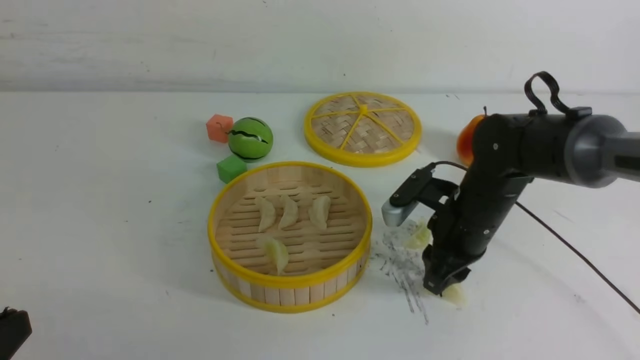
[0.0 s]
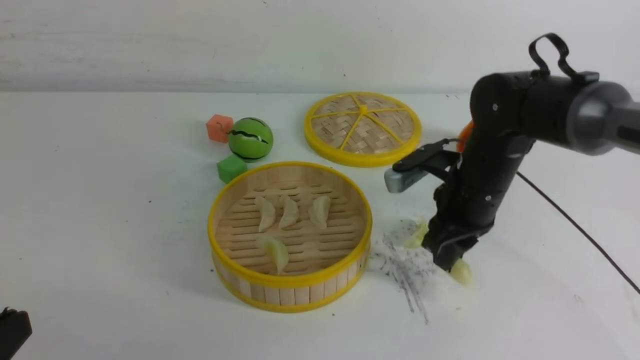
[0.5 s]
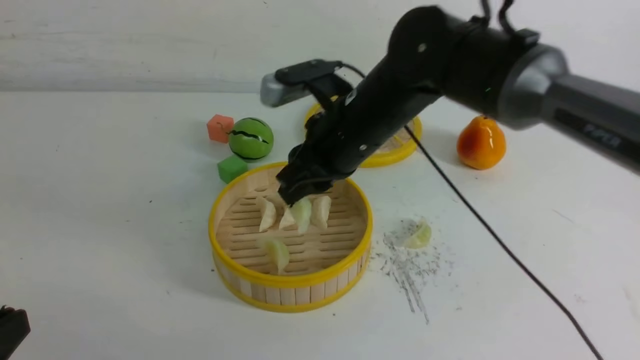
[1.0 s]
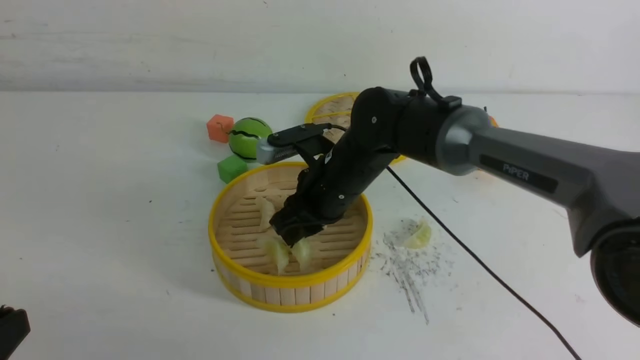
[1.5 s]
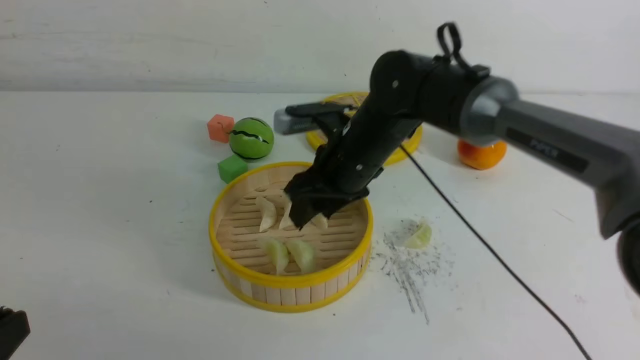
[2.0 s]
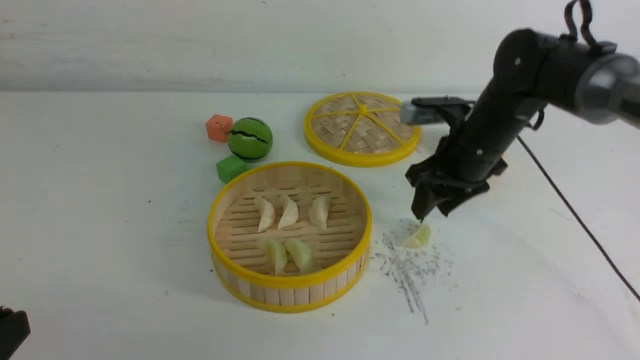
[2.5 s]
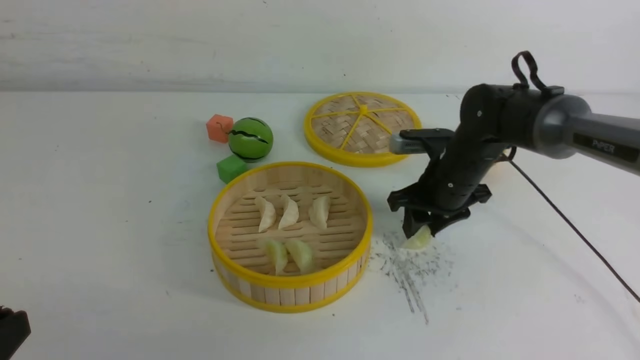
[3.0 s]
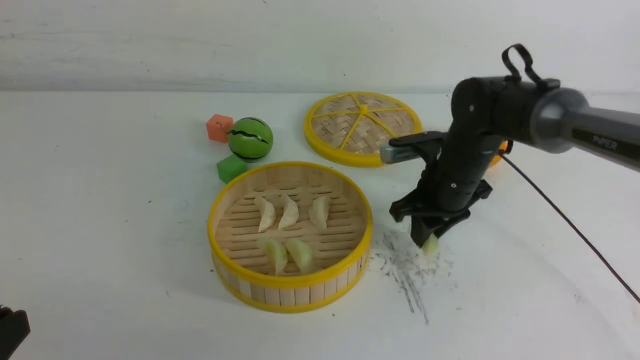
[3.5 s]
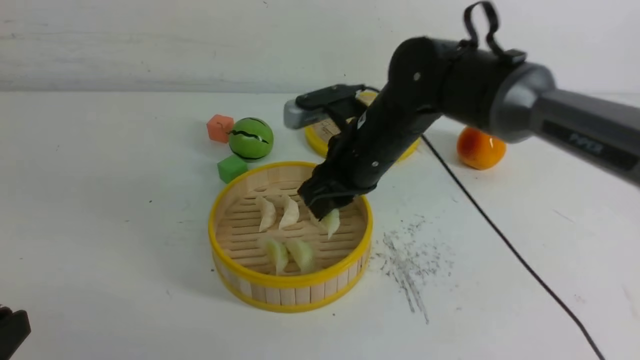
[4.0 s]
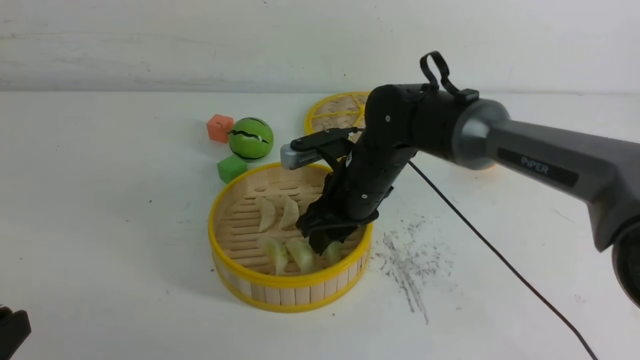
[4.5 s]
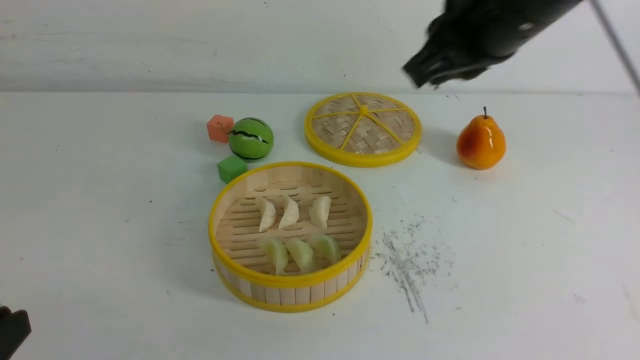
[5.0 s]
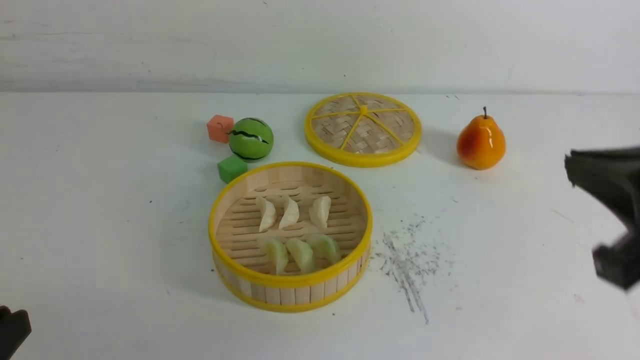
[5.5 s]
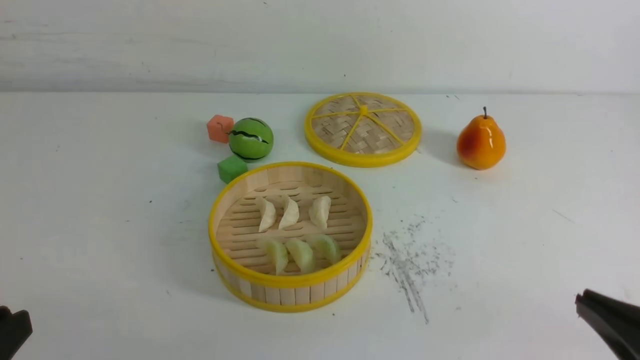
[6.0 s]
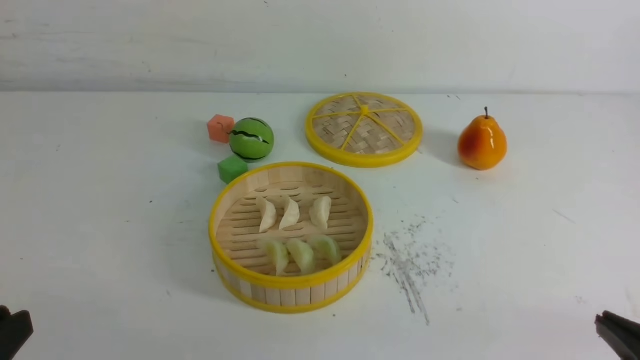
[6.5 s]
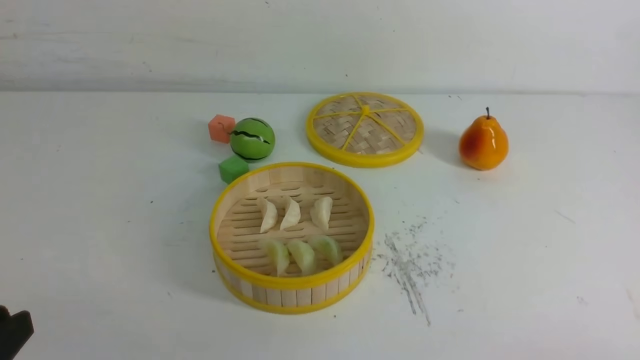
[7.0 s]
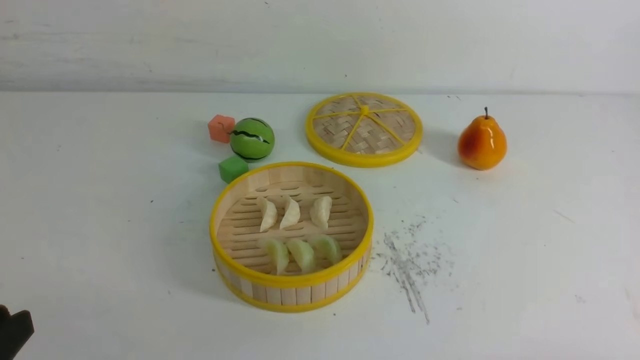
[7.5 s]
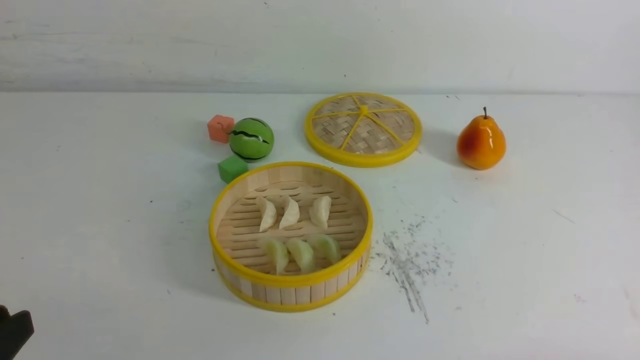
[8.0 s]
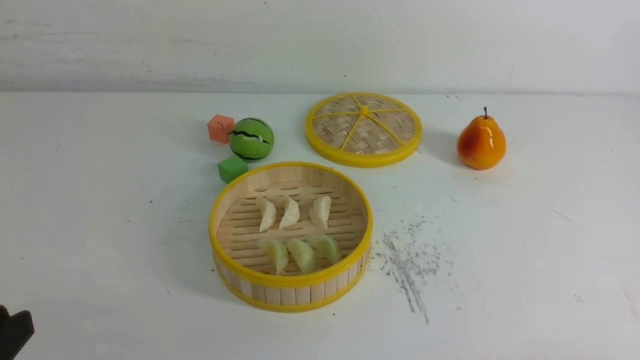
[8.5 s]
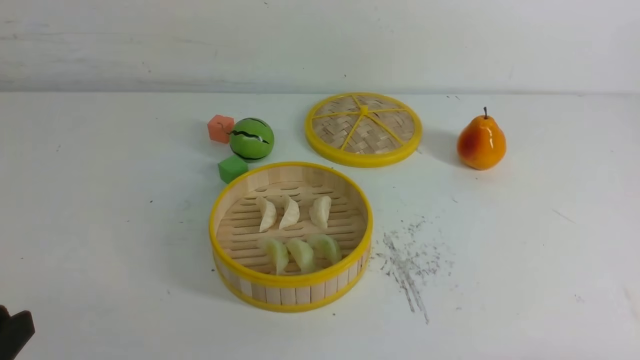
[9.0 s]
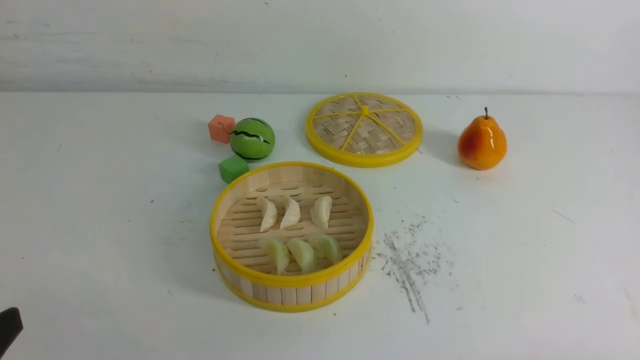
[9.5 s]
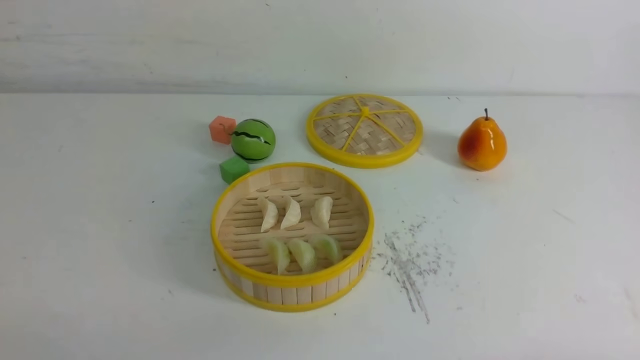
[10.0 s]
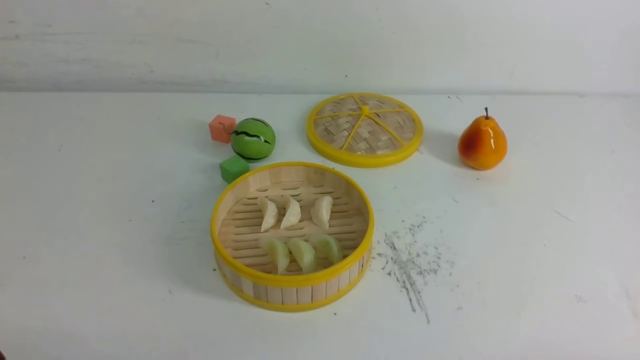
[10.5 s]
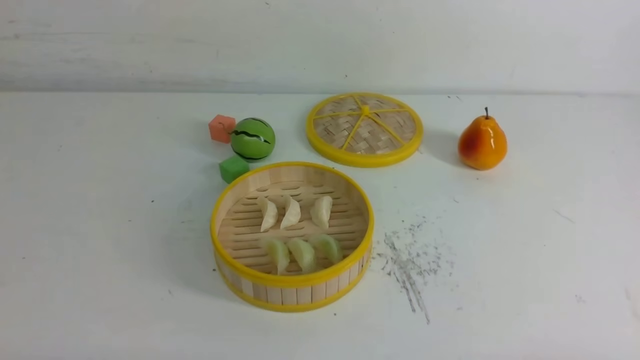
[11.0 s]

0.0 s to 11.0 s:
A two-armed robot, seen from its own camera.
Task of the whole recording: put the dumplings into the steamer on the white table.
Step, 0.5 to 1.5 s: use the right arm to put the dumpling into the steamer.
Step, 2.5 to 3.0 s: use the right arm to grab a dumpling.
Step, 4.0 to 4.5 s: use the right arm to put the dumpling into the steamer.
0.0 to 2.0 s: The right gripper shifts about 15 cm to the left and upward.
2.0 to 3.5 s: The right gripper travels to the right by some 10 cm, and closes up.
3.5 to 5.5 s: The right gripper moves backward and upward, approximately 30 cm, and closes up.
5.5 to 7.5 s: The right gripper goes some 20 cm downward, backward and to the right.
7.5 to 9.0 s: Both grippers stay put.
9.0 to 11.0 s: The left gripper goes roughly 10 cm downward, and closes.

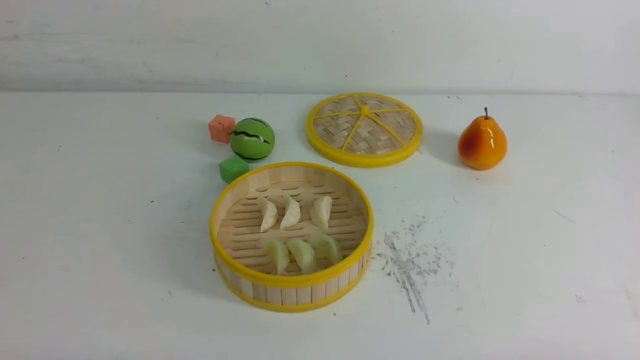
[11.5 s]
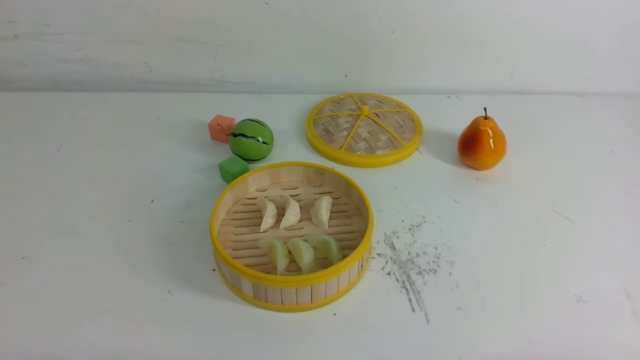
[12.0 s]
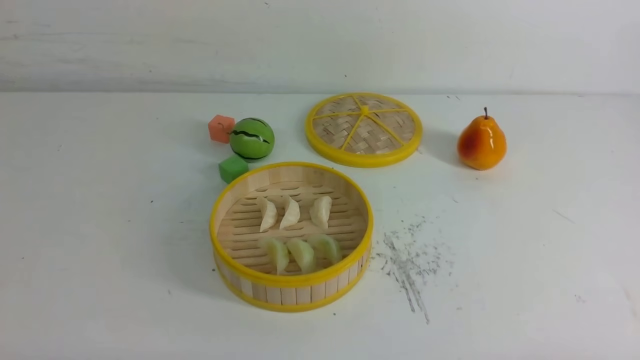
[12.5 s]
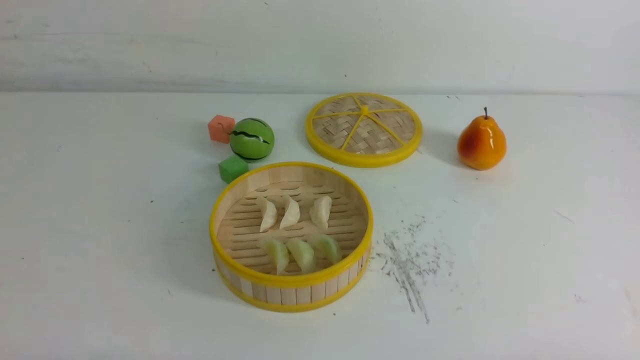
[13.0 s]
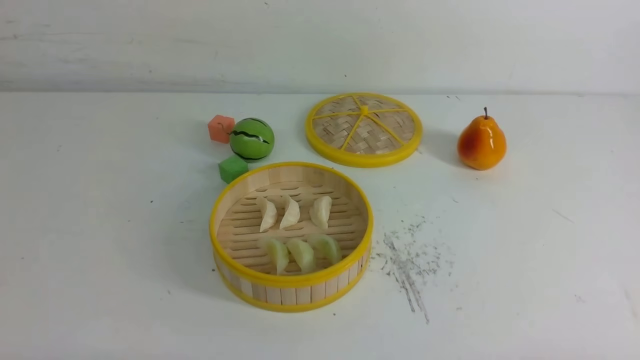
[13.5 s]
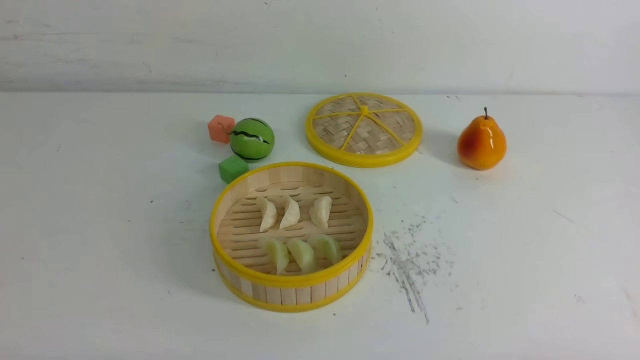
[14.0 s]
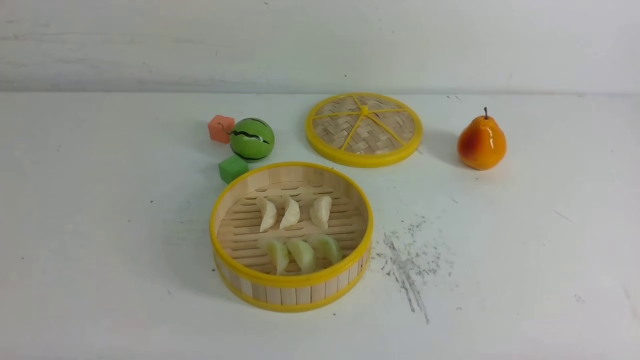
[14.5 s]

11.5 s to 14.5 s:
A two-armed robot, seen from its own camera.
Task of the whole recording: put the dumplings into the steamer on the white table.
11.5 to 14.5 s: Both grippers stay put.

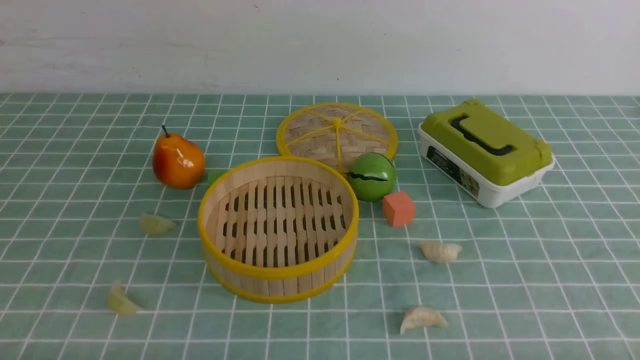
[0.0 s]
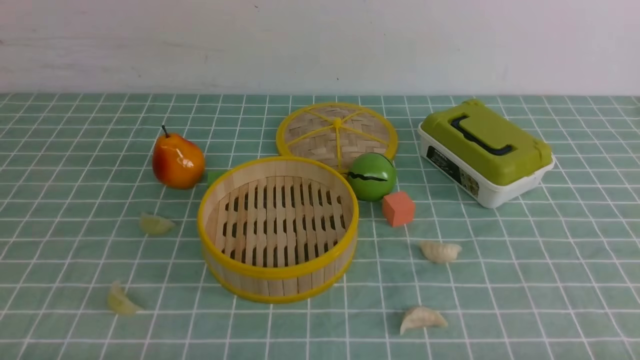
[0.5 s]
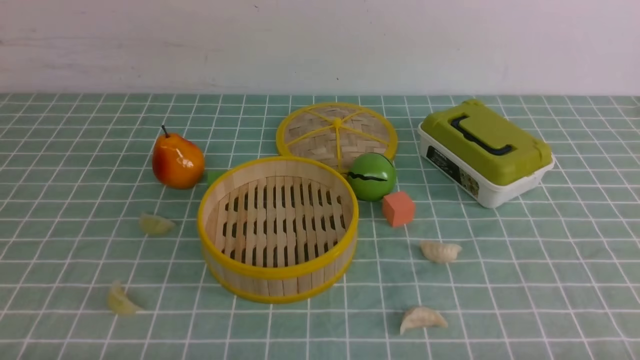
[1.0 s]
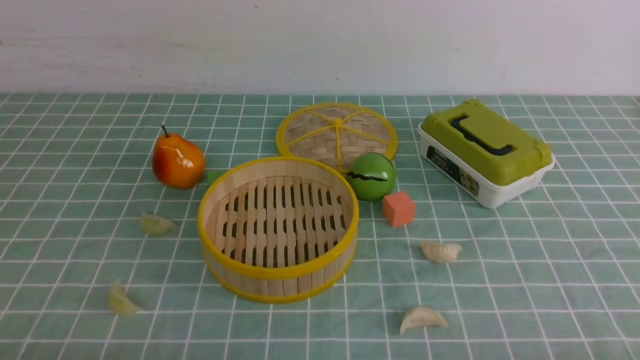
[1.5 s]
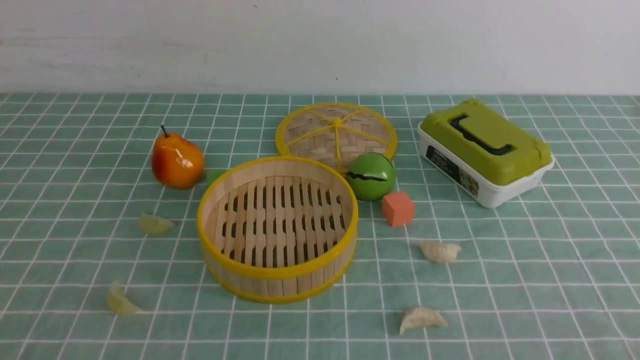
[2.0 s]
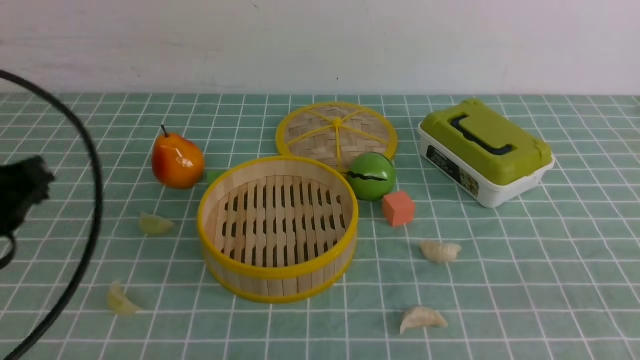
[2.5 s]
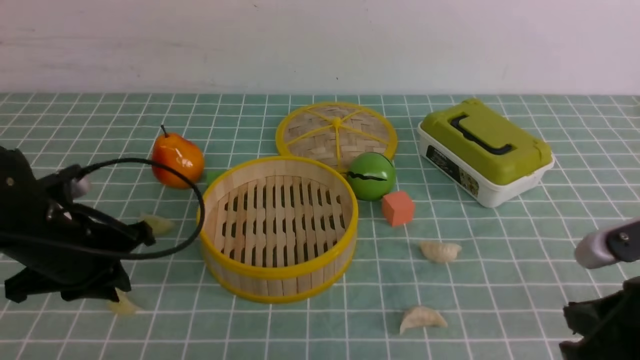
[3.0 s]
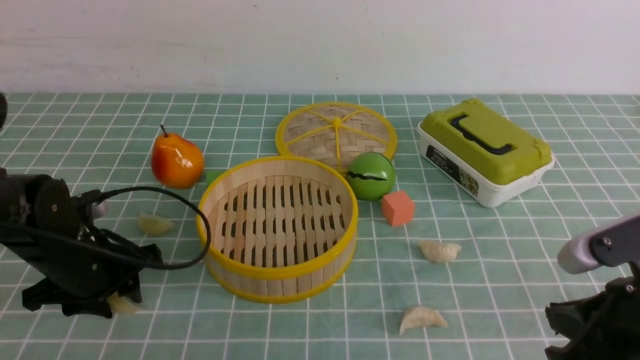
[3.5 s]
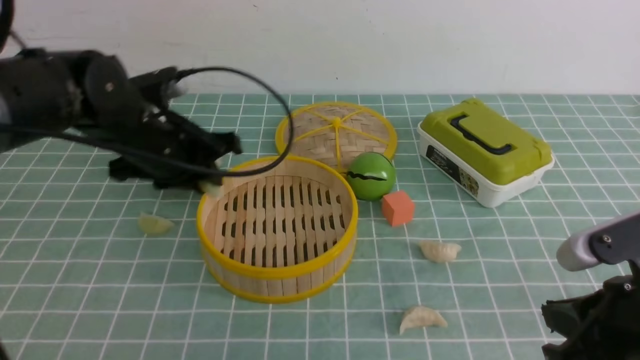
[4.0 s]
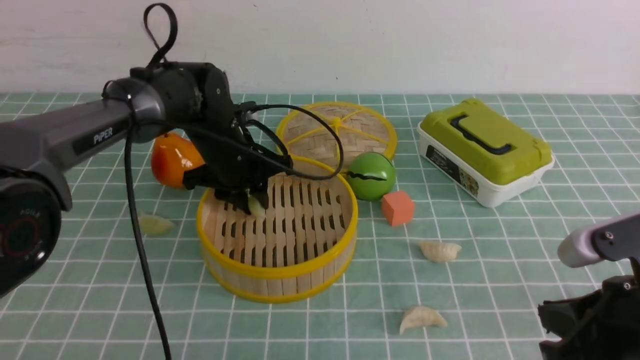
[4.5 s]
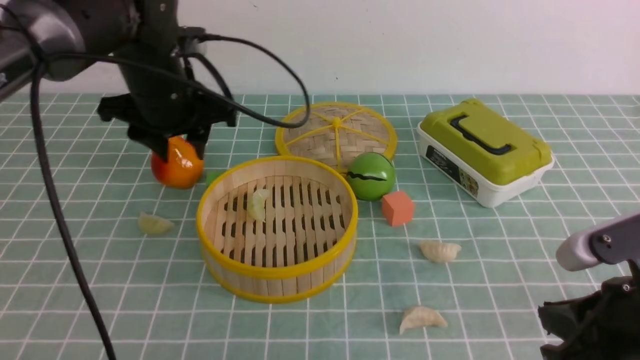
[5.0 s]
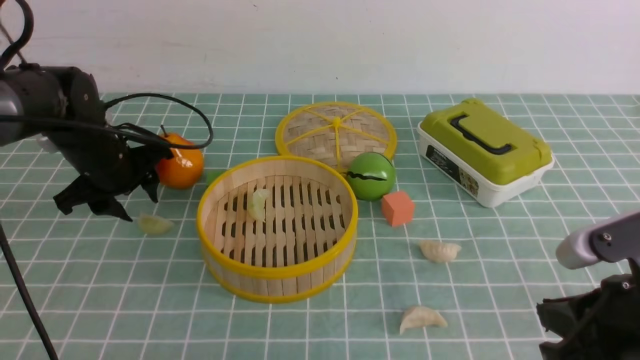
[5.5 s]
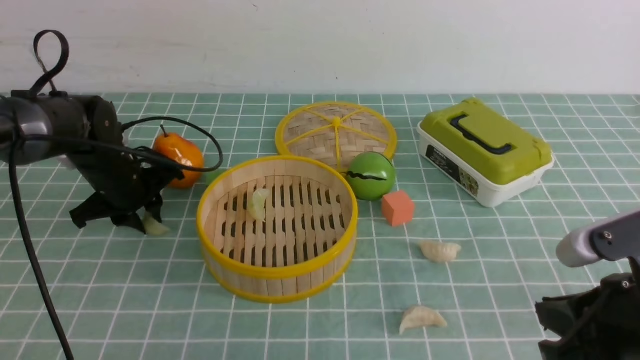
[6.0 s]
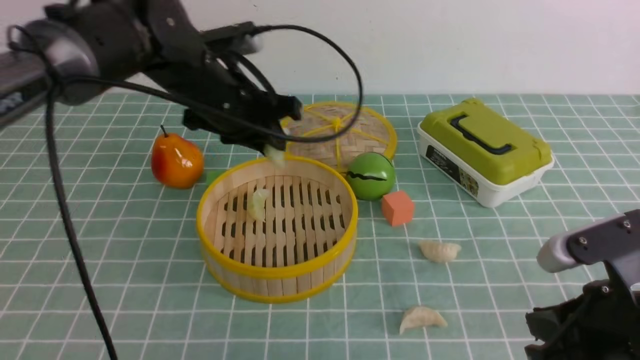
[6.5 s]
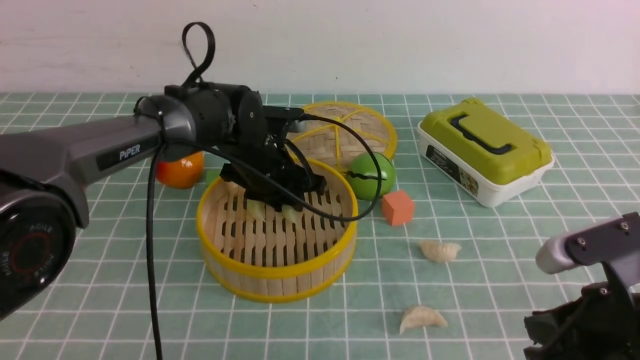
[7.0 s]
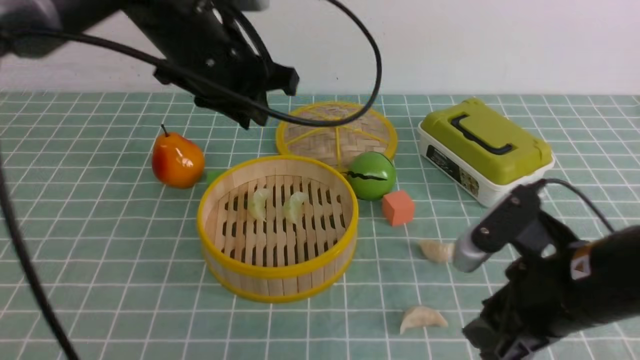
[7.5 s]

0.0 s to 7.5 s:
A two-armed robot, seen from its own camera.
Task of the whole recording: put the dumplings into the steamer on the table with the blue tablecloth.
Step, 0.0 to 3.5 s: use the left arm to grab a dumpling.
Step, 4.0 to 4.5 s: use the left arm to put the dumpling into the steamer.
Step, 5.0 to 5.5 s: use the left arm to grab a dumpling.
Step, 6.5 to 7.0 s: use the left arm to put the dumpling into the steamer.
2.0 to 4.0 s: The right gripper heads forward and to the left, covering some 15 cm; the left gripper heads forward, covering some 35 cm.
4.0 to 5.5 s: The left gripper heads to the left, covering some 10 cm, and opens its fingers.
5.5 to 7.5 s: The right gripper moves forward and to the left, some 10 cm, and opens up; the left gripper is displaced upward, to the right and backward by about 20 cm, and closes up.
